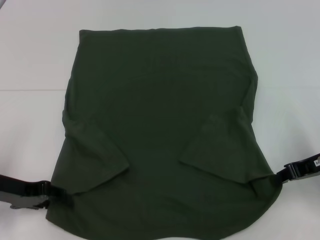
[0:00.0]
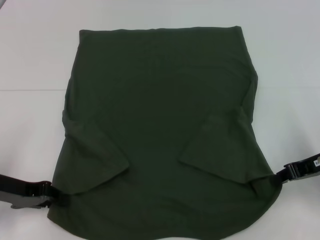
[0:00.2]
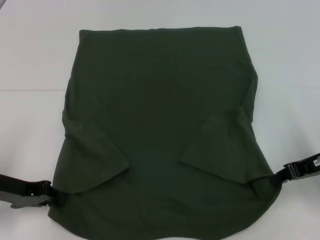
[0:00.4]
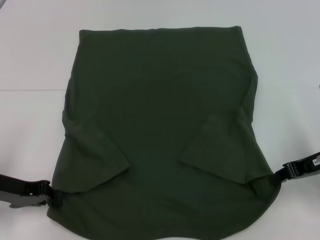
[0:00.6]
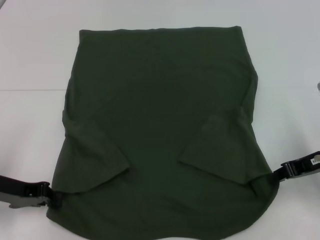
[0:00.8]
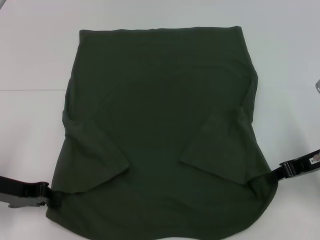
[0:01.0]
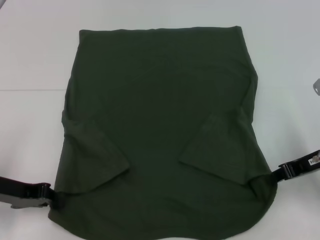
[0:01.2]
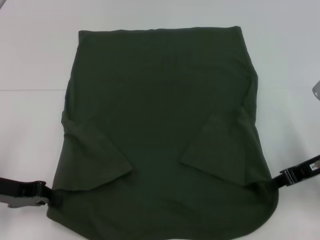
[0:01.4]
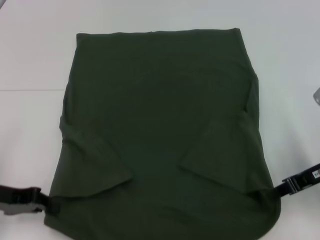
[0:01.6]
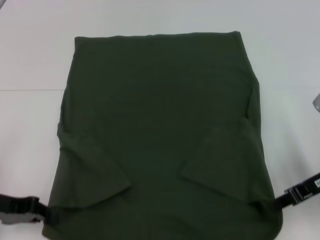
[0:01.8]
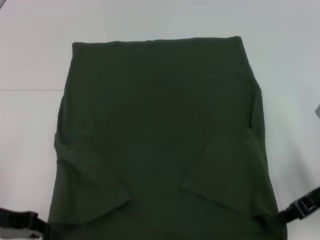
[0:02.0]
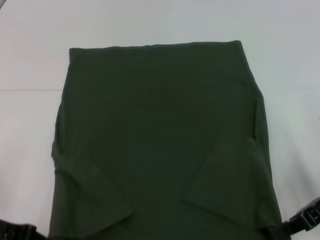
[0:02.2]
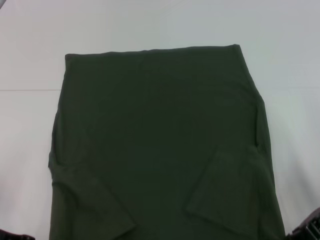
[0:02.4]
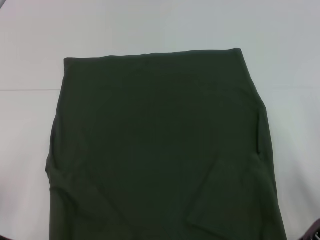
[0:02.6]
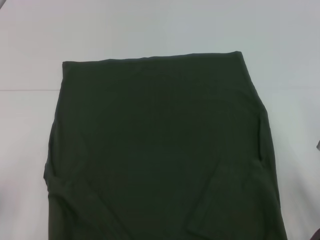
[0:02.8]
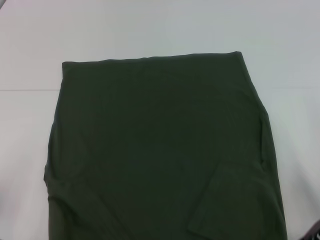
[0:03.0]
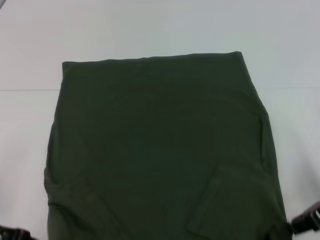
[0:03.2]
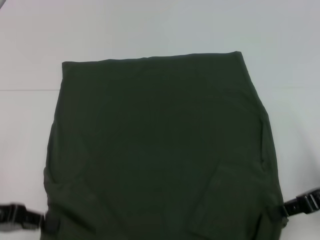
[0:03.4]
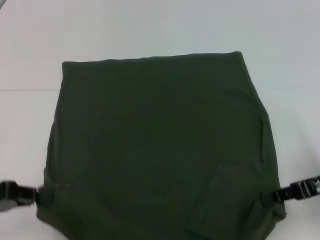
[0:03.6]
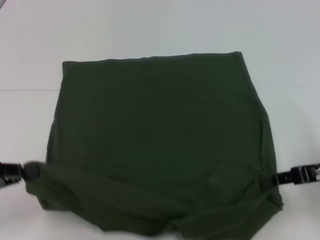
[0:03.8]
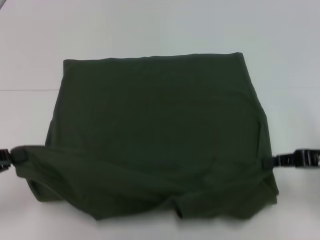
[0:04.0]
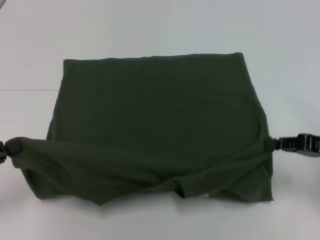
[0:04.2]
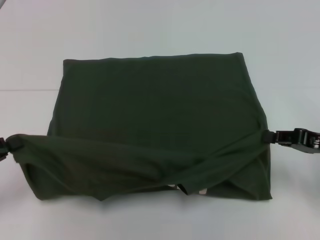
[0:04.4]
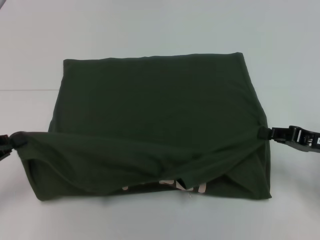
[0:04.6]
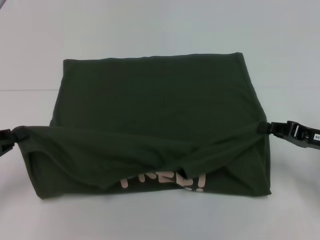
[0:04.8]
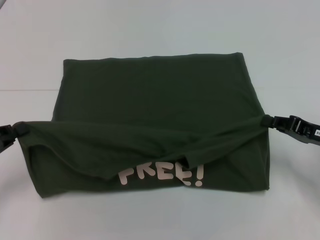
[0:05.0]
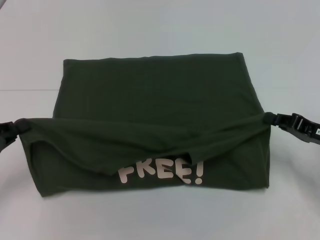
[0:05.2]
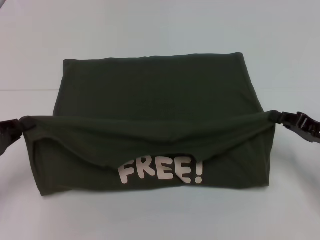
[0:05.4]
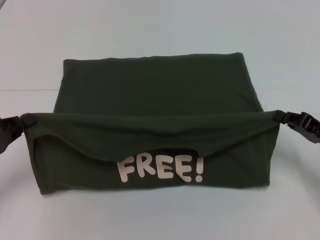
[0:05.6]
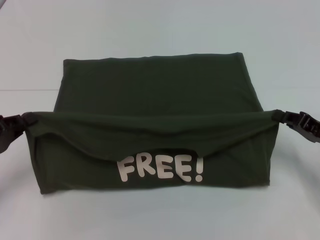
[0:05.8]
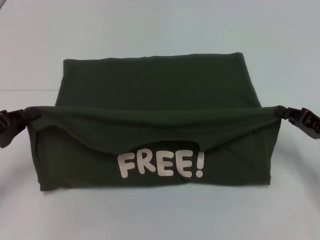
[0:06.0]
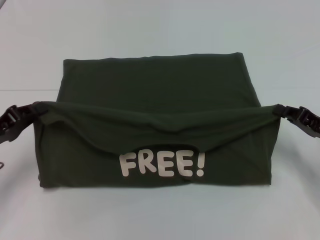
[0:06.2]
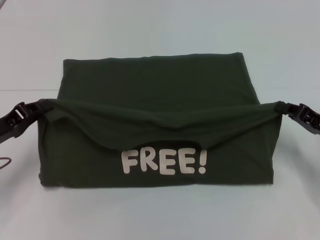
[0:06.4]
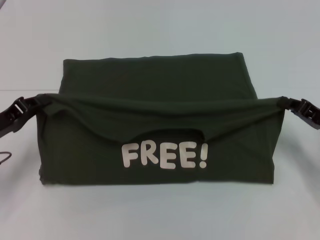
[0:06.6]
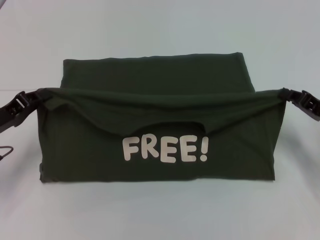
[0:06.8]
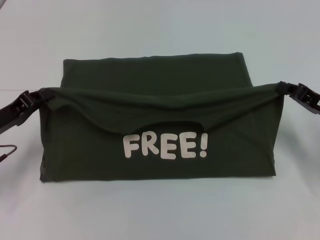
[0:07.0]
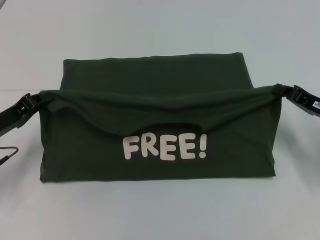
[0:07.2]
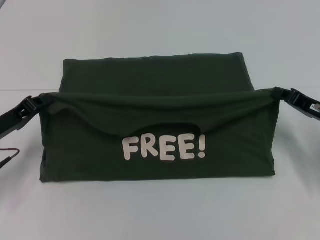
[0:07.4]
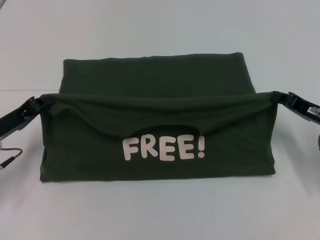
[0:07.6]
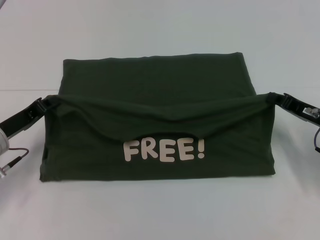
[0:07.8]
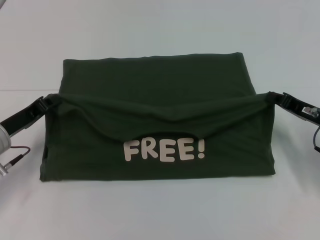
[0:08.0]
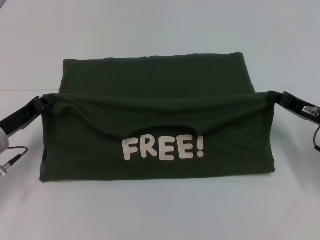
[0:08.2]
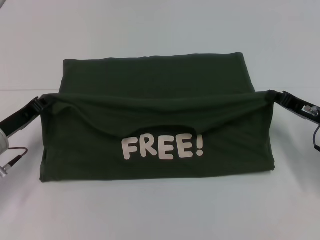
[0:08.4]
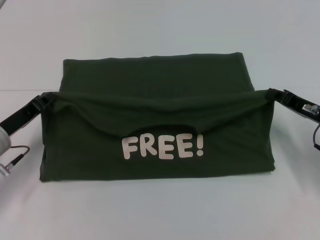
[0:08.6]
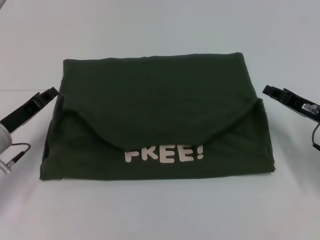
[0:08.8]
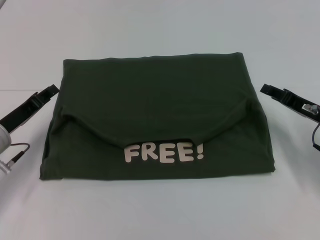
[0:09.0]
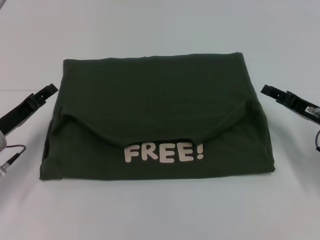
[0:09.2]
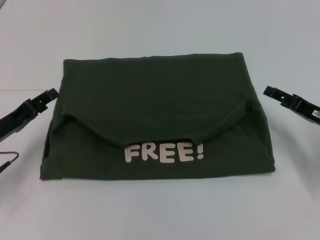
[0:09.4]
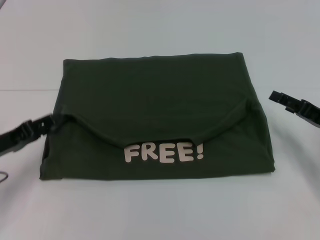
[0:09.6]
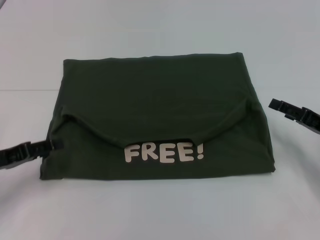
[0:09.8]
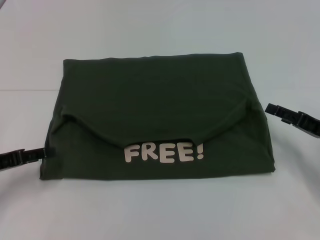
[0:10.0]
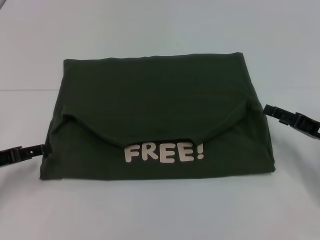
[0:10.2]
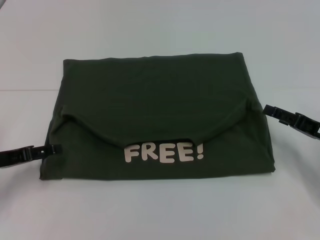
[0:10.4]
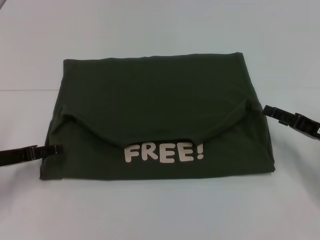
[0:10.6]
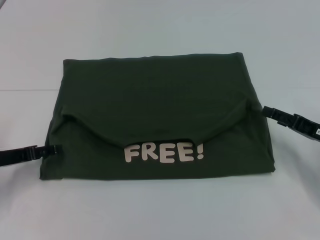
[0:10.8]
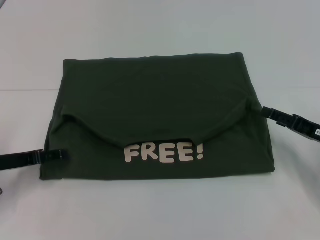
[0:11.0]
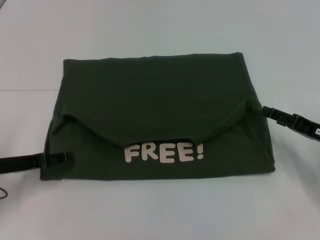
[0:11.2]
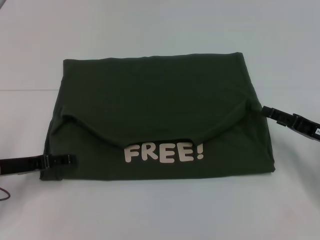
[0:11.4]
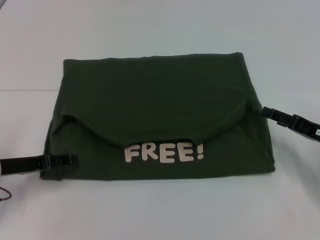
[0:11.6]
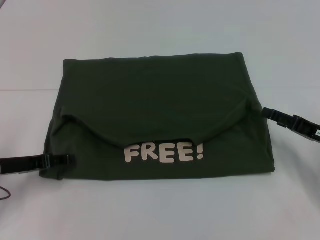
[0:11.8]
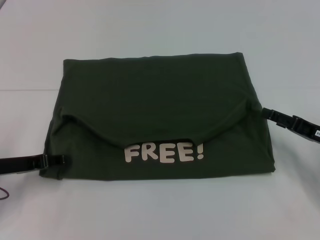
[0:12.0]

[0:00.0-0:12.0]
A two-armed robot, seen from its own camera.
Step, 0:01.6 to 0:09.0: Fold the clothes with your left hand.
Step, 0:01.6 to 0:09.0: Fold the clothes with your right hand.
0:00.0 to 0:01.6: The left gripper closes its fingers.
0:03.0 to 0:04.4: The left gripper is displaced to the left by roughly 5 cm.
0:04.4 to 0:06.0: The left gripper changes place by about 5 cm.
0:06.0 to 0:07.6: The left gripper changes place by about 5 cm.
0:07.6 to 0:09.0: There are only small adjustments of the grippers.
0:09.0 to 0:10.4: The right gripper opens its fingers; the left gripper moves roughly 5 cm, and opens its fingers.
0:10.4 to 0:12.0: The grippers stay close to where they were, moving slightly.

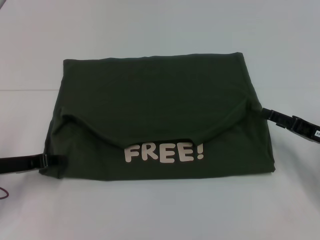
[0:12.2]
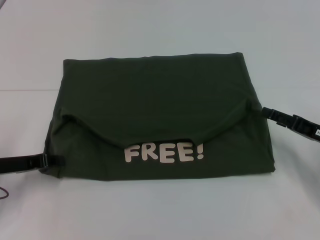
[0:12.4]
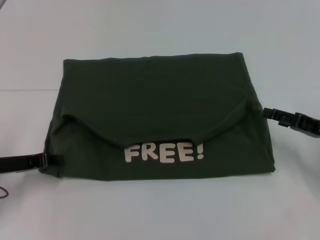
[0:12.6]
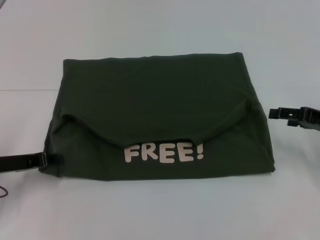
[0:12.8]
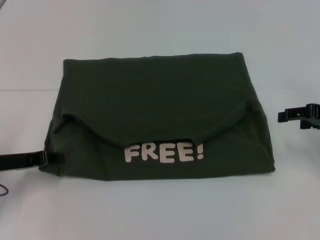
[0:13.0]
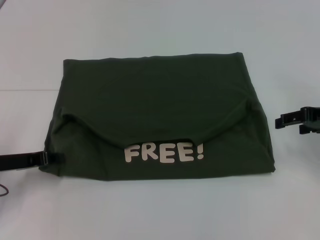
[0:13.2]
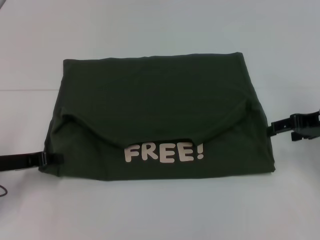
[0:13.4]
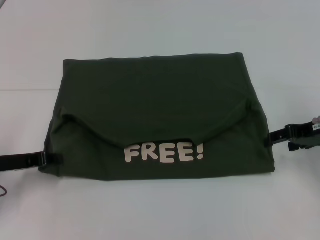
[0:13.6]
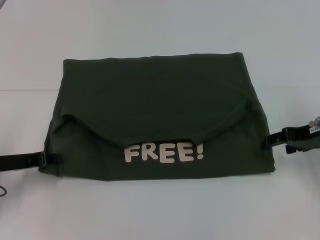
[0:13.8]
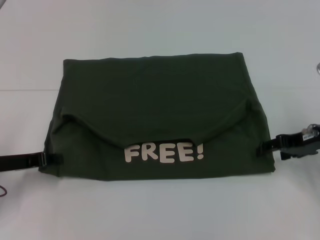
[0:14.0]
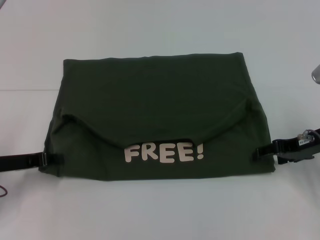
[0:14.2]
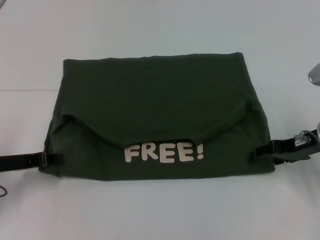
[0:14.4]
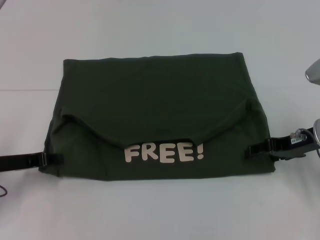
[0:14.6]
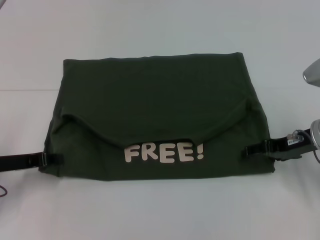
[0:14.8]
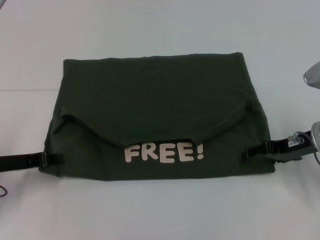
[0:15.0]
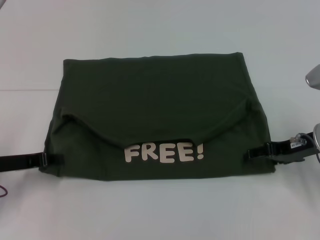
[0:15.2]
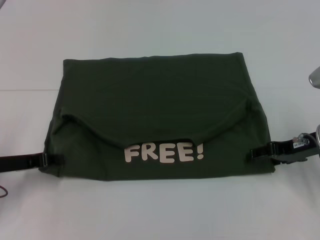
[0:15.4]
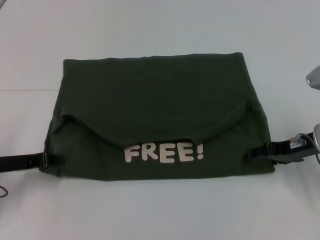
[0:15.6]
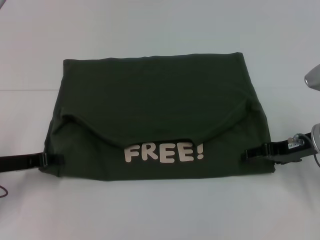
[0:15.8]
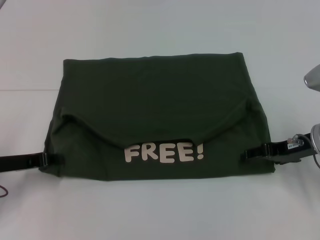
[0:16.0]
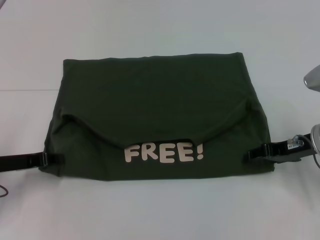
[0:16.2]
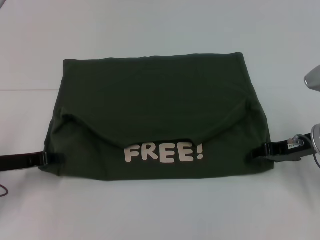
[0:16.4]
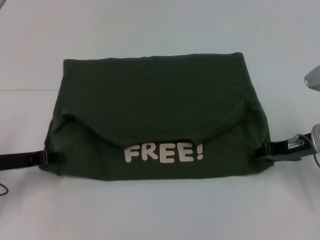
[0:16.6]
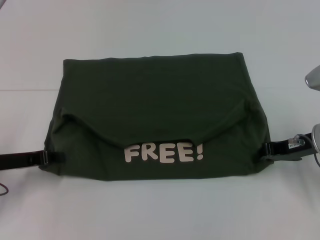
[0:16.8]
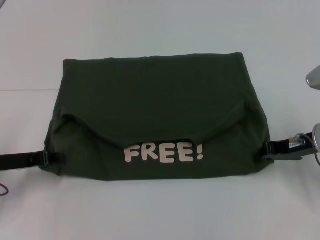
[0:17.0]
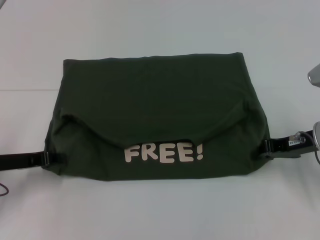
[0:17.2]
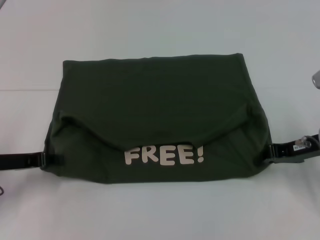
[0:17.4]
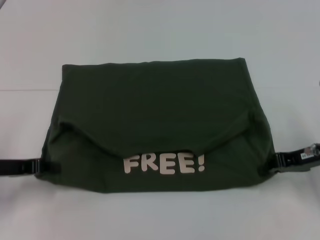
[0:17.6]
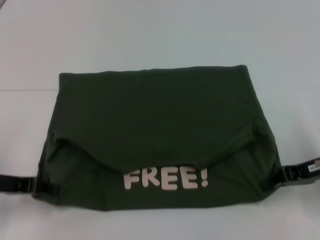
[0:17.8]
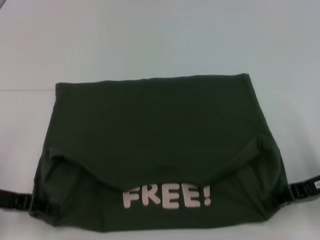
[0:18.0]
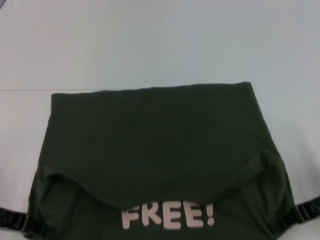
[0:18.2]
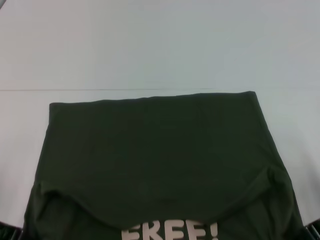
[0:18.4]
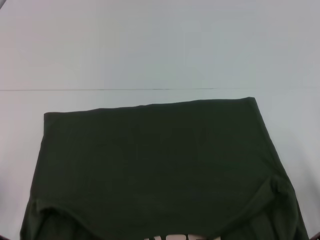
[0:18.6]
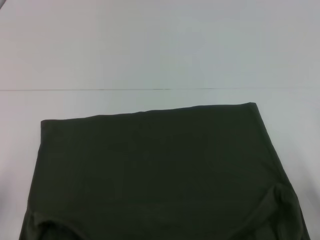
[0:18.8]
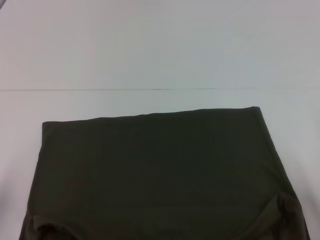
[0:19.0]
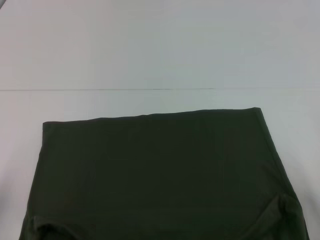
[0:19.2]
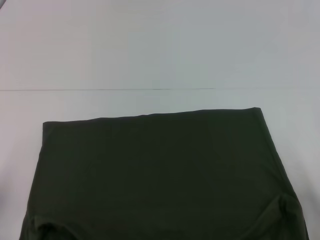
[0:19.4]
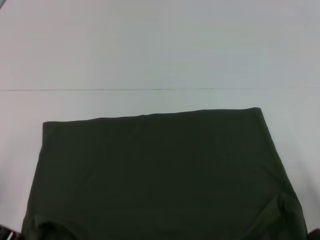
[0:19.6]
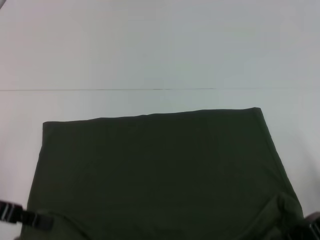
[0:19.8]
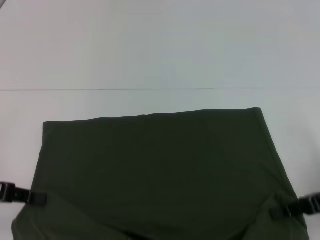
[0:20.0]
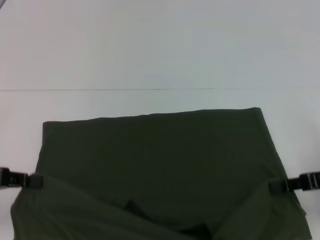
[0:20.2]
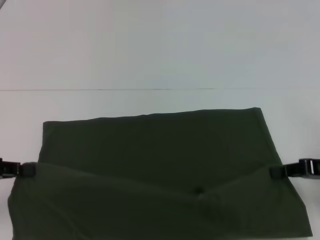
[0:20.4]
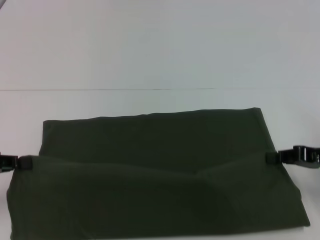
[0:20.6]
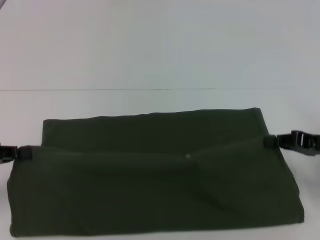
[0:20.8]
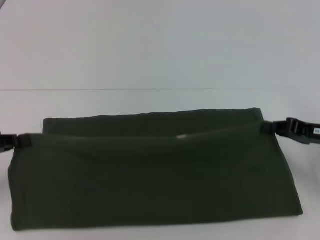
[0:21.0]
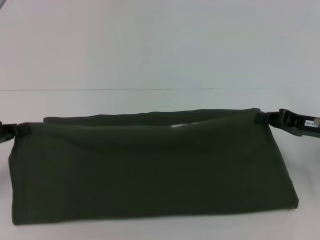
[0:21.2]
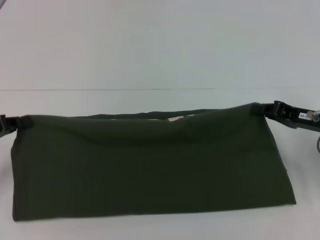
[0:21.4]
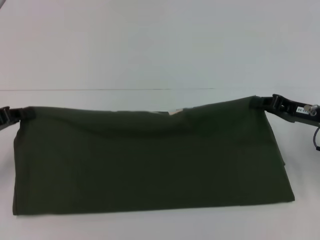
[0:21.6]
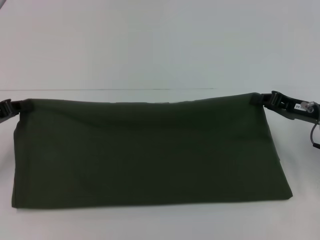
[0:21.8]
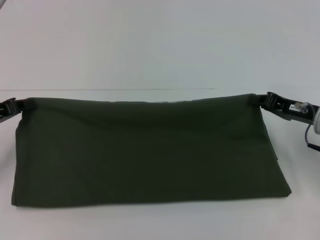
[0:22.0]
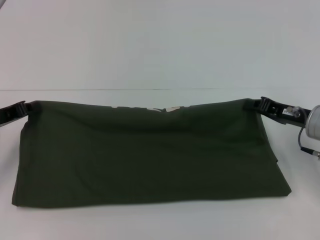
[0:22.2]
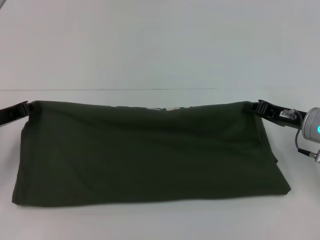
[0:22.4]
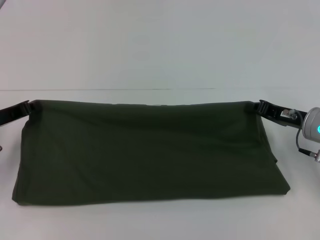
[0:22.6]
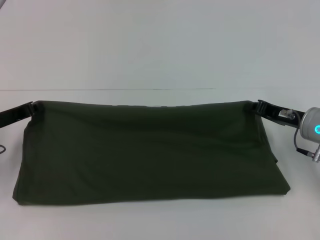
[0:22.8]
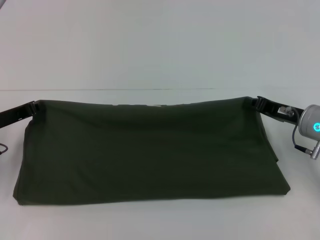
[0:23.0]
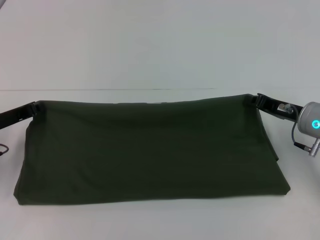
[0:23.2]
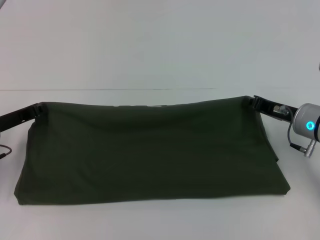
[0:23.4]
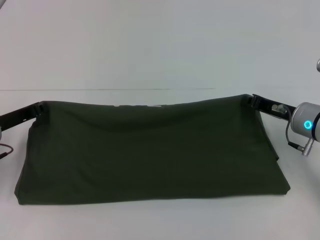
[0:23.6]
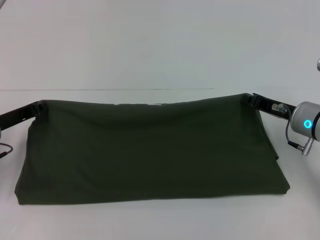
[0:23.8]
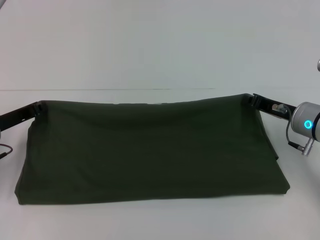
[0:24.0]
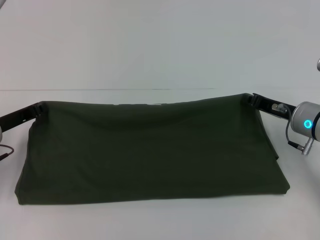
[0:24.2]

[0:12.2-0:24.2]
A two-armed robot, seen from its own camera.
Step, 0:12.2 to 0:18.6: Pull the clothes with your left hand.
Step, 0:12.2 to 0:18.6: Pull the clothes with your right hand.
0:12.2 to 0:13.8: The right gripper moves upward and forward, some 10 cm. Meanwhile the left gripper closes its fingers.
0:13.8 to 0:15.2: The grippers make only small movements.
0:15.2 to 0:16.6: The right gripper closes its fingers.
0:16.6 to 0:18.2: Both grippers travel together backward, approximately 5 cm.
0:19.8 to 0:21.2: The right gripper shifts roughly 5 cm forward.
0:21.2 to 0:22.6: The left gripper goes roughly 5 cm forward.
0:22.6 to 0:24.2: The grippers make only small movements.
